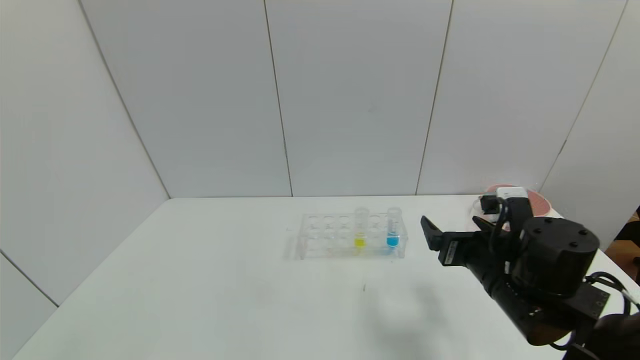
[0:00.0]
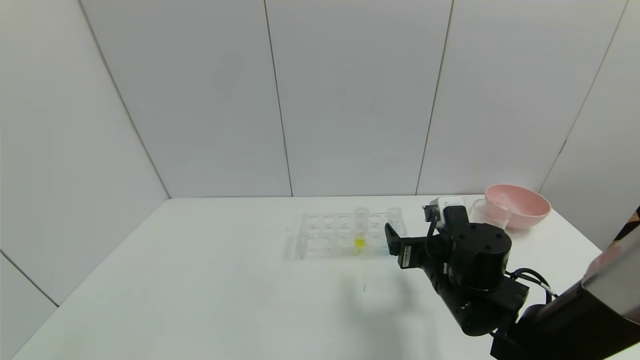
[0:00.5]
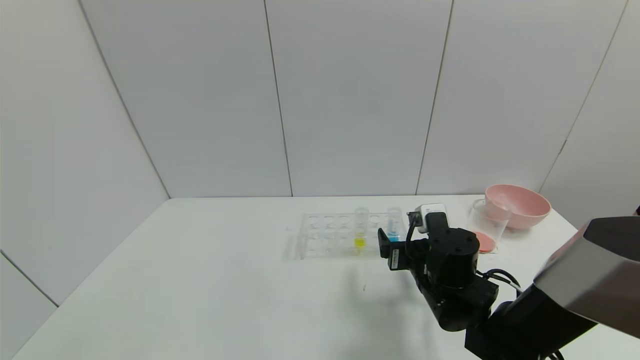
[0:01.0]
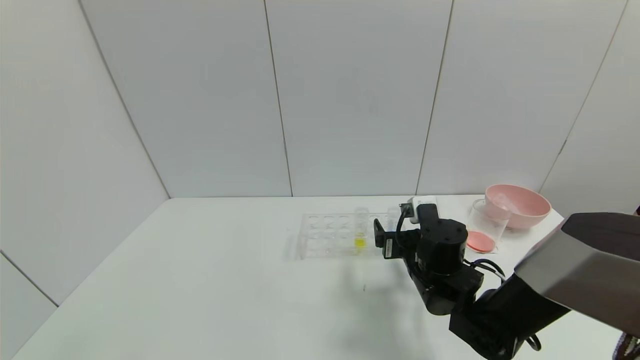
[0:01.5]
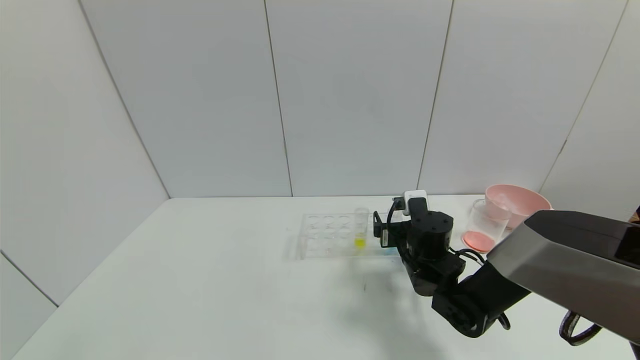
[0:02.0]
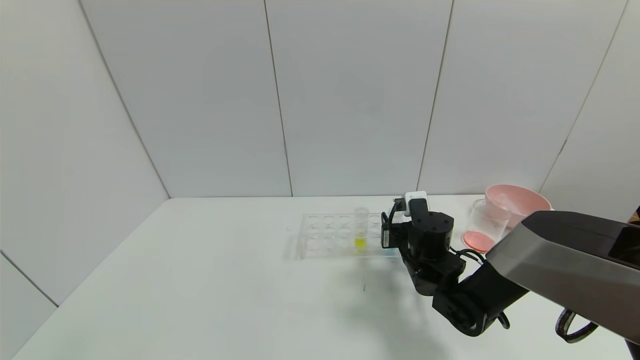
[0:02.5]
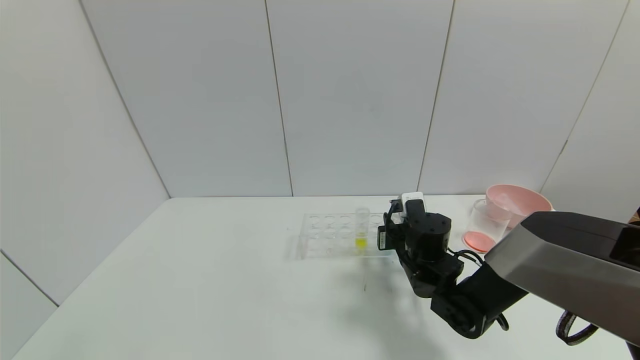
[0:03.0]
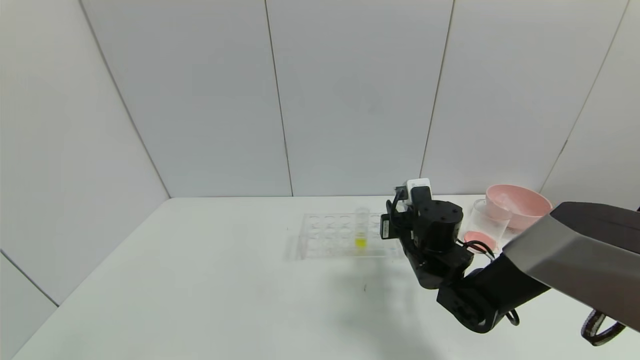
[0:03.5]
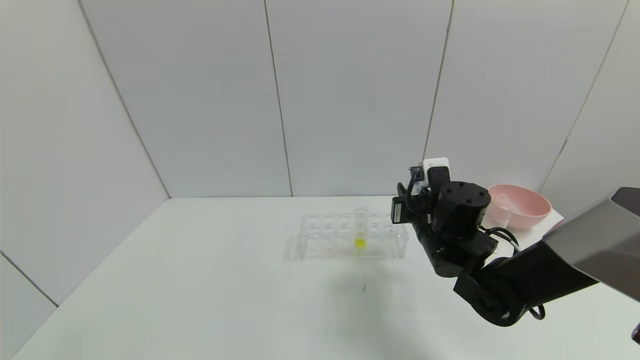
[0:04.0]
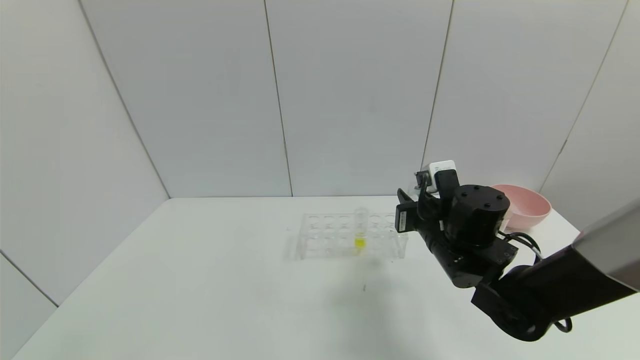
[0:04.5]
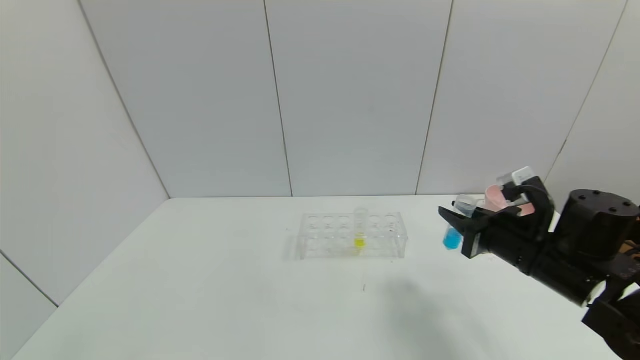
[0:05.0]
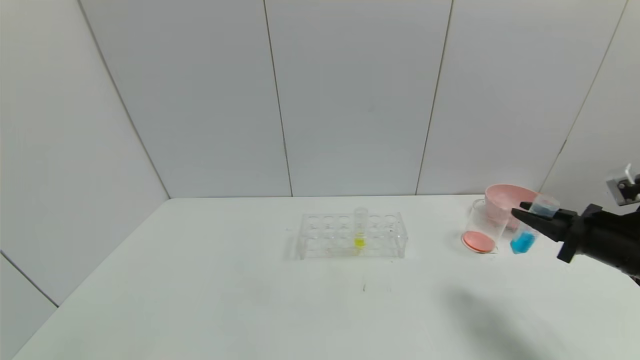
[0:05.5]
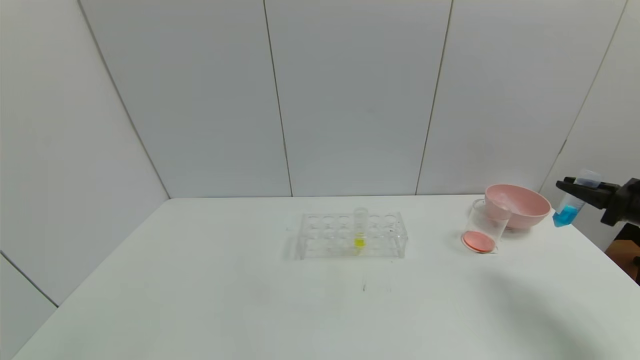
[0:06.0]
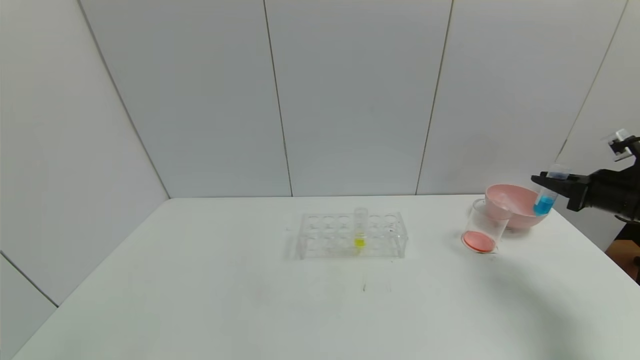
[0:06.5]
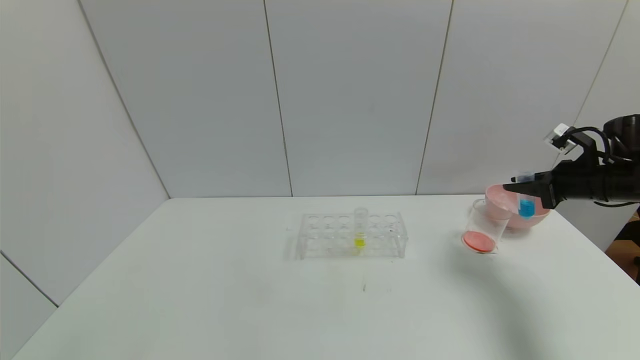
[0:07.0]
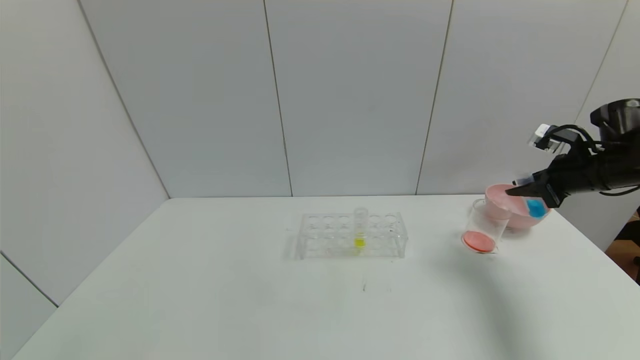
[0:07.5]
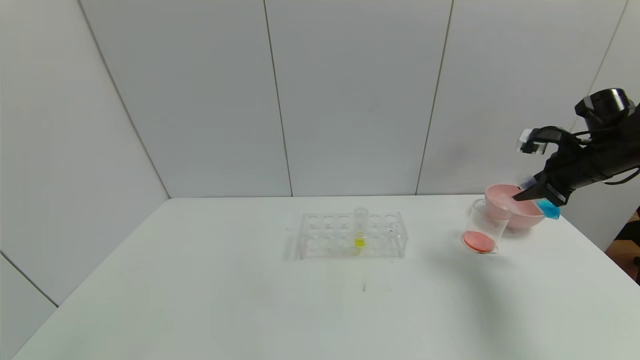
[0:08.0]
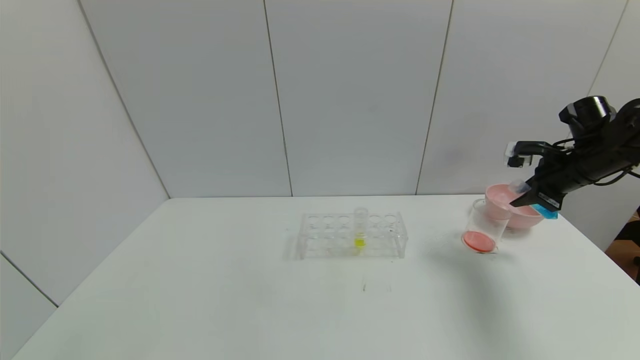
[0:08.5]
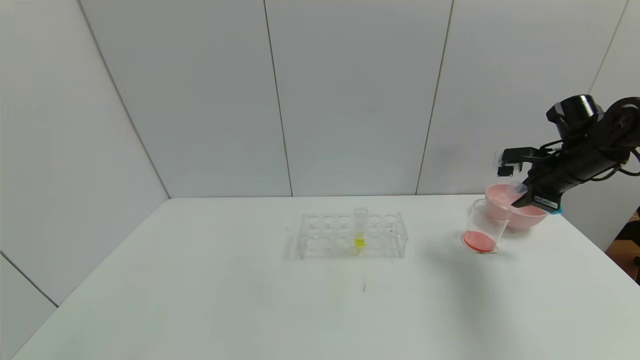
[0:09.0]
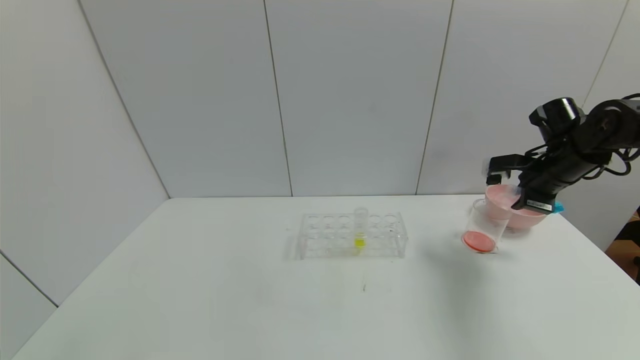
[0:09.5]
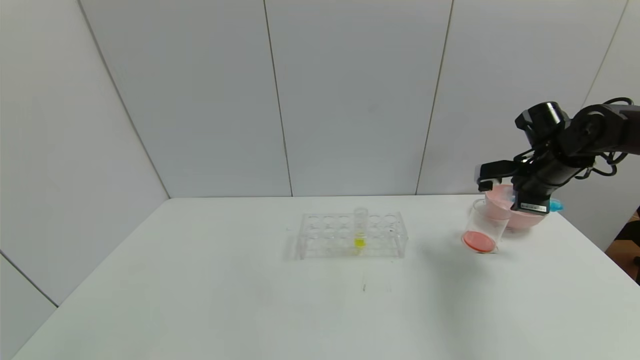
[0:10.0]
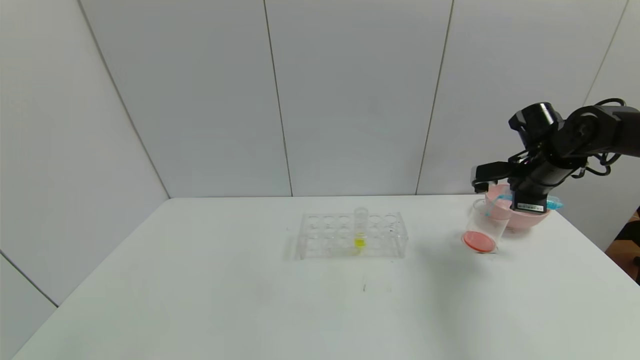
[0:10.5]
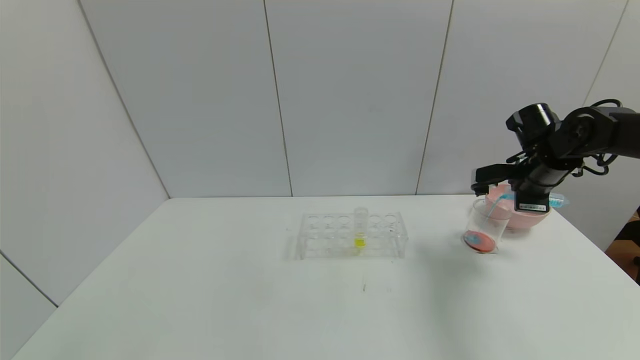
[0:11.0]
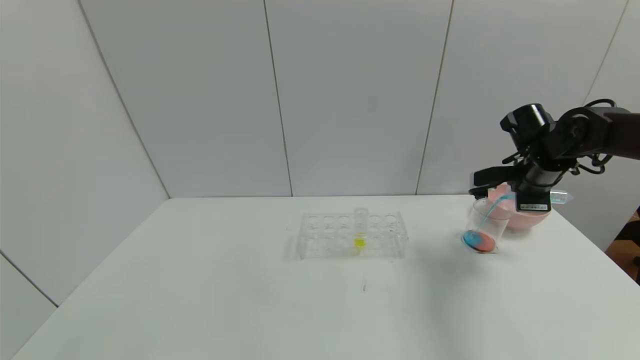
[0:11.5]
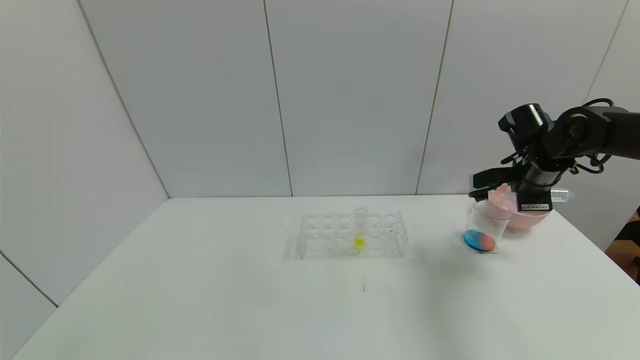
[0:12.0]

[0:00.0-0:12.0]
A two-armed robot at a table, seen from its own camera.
Task of the whole recording: pick up the test tube with red pigment and the test tube with blue pigment by grippers and pour them into the container.
Step, 0:00.0 to 0:04.5: Pick up the test tube containing the blue reagent with right gripper.
0:00.0 to 0:02.0: The right gripper heads forward, to the left and downward, covering some 15 cm.
0:02.0 to 0:04.0: The right gripper is displaced upward by about 5 cm, and closes its fingers.
0:04.0 to 0:06.0: The right gripper shifts about 30 cm to the right.
0:06.0 to 0:08.0: The right gripper heads forward and to the left, covering roughly 10 cm.
0:08.0 to 0:10.0: The right gripper heads to the left, covering about 5 cm.
0:10.0 to 0:12.0: The grippers stay close to where they were, moving slightly.

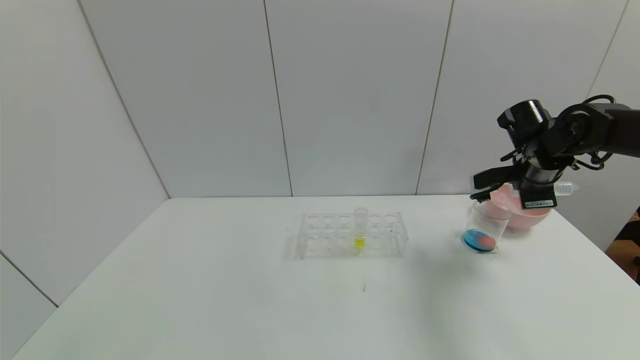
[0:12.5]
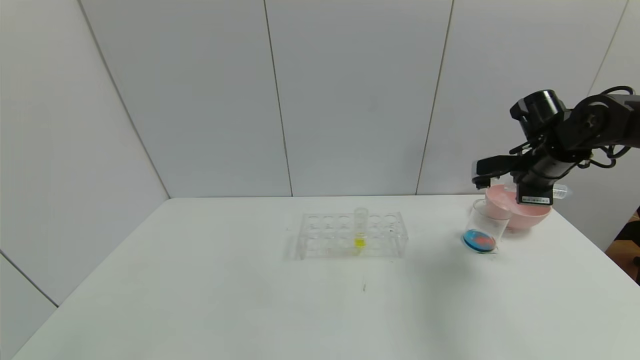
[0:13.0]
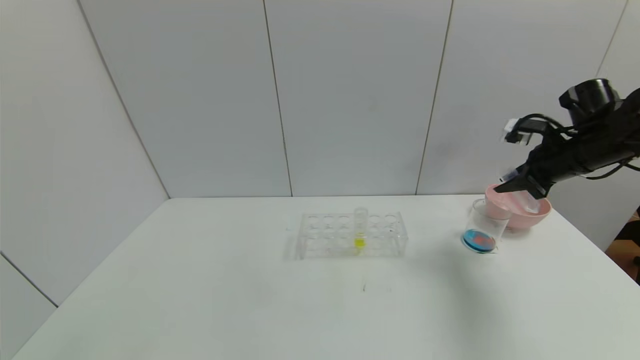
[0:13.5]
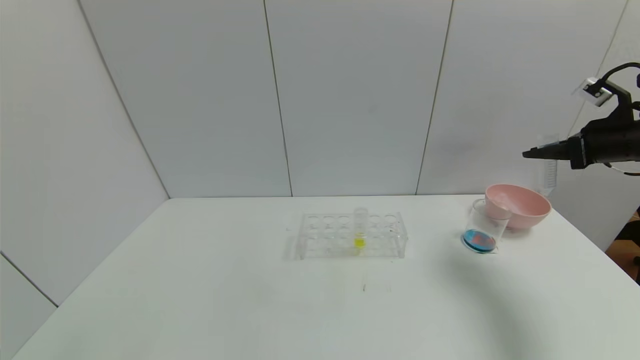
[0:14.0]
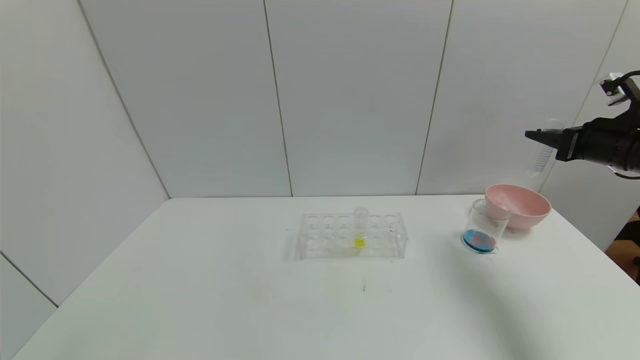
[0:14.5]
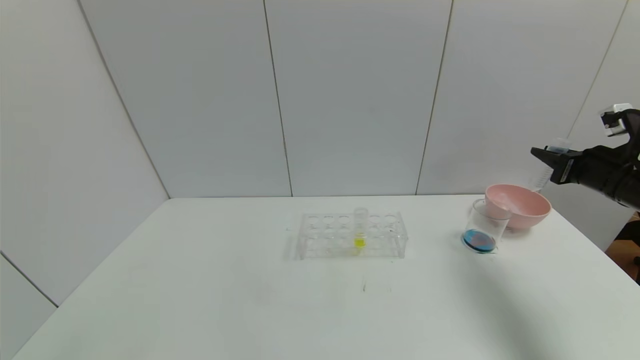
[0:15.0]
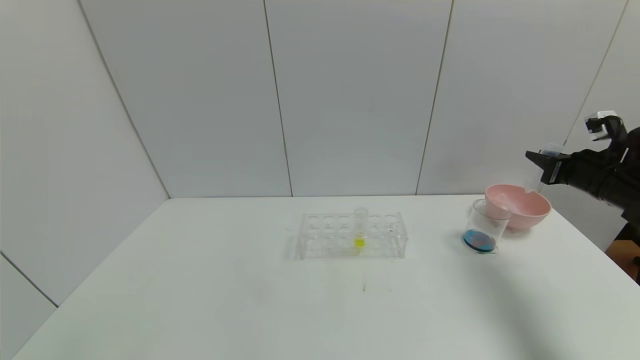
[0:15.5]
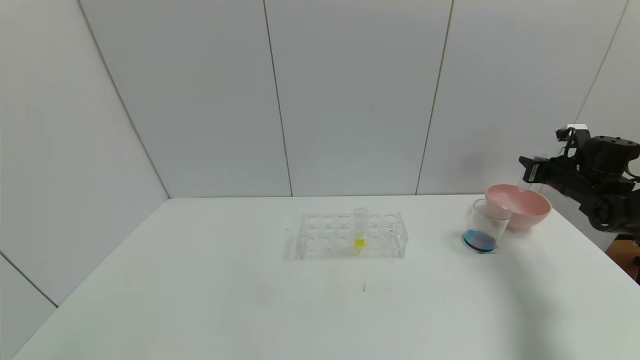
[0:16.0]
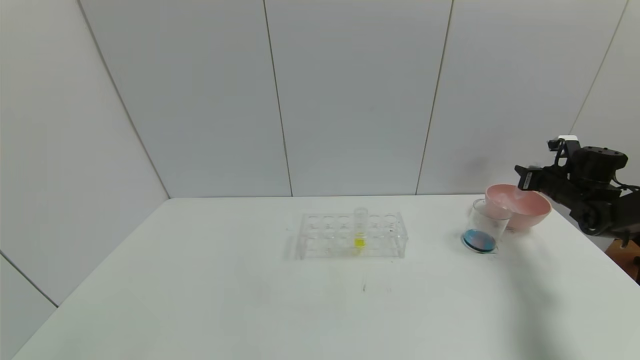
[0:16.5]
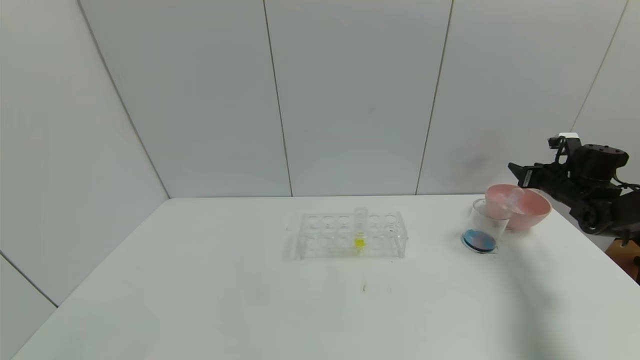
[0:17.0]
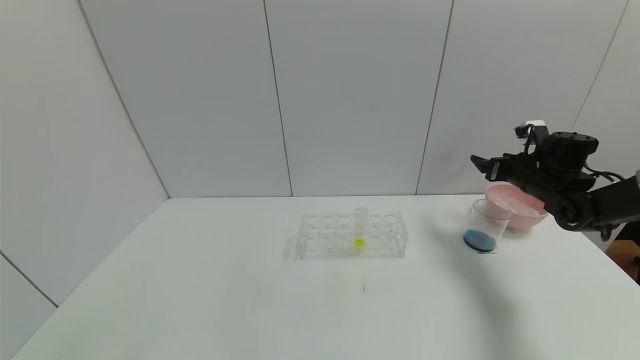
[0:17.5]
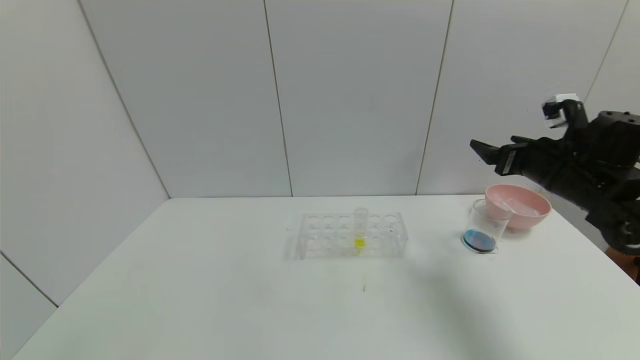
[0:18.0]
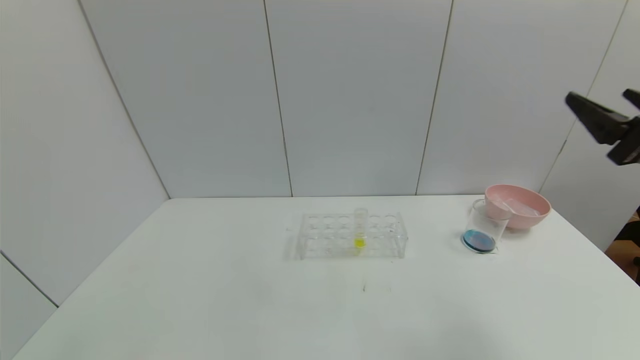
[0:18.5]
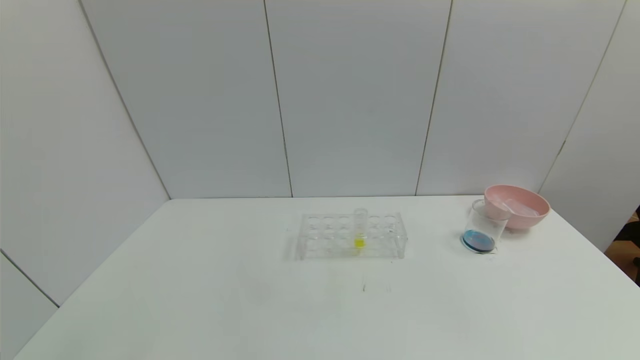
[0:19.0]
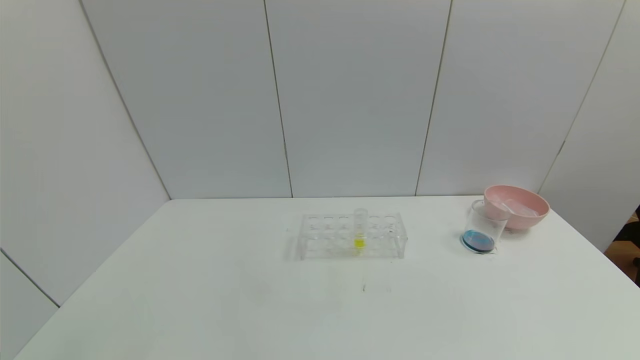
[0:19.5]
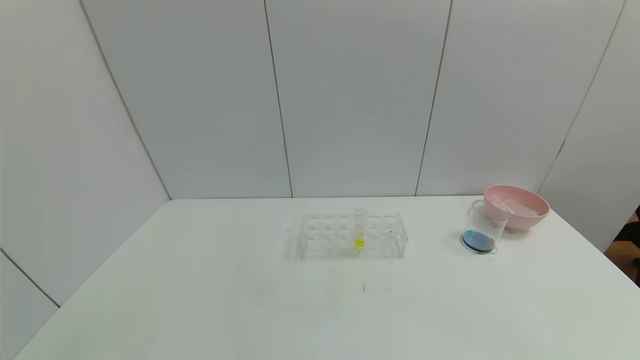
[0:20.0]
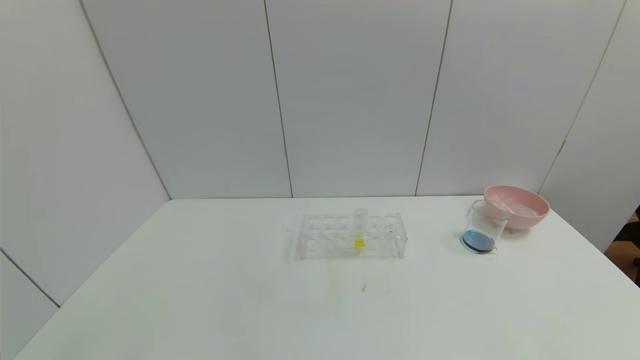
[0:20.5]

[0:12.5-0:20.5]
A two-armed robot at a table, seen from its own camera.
Task of the whole recording: pick up the test tube with red pigment and the test tube with blue pigment by grippers and pour them into the container.
Step, 0:14.5 to 0:18.0: Place the test tube into the bowl with right gripper.
0:12.5 to 0:14.5: The right gripper travels to the right and backward by about 10 cm.
0:14.5 to 0:16.5: The right gripper moves downward and forward, roughly 15 cm.
0:16.5 to 0:18.5: The right gripper travels backward, upward and to the left by approximately 30 cm, and opens its fingers.
0:18.5 to 0:20.5: The right gripper heads backward and downward, covering roughly 30 cm.
